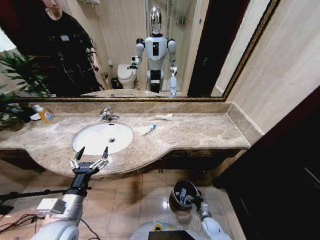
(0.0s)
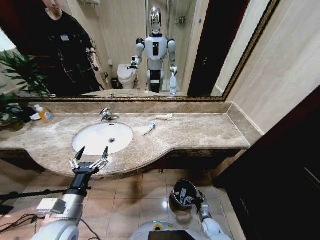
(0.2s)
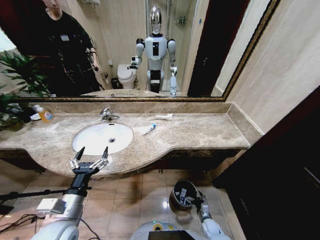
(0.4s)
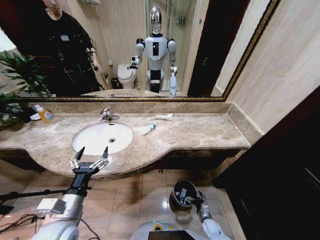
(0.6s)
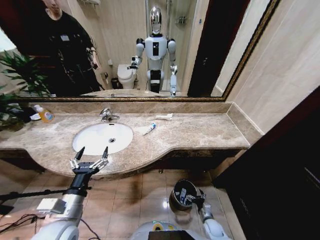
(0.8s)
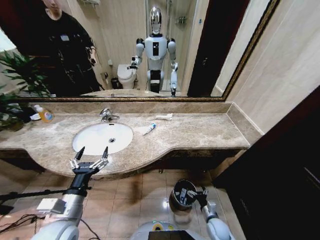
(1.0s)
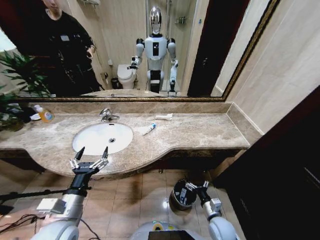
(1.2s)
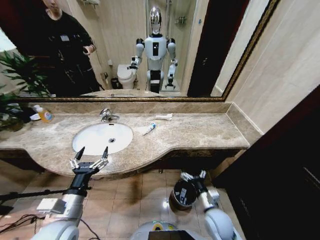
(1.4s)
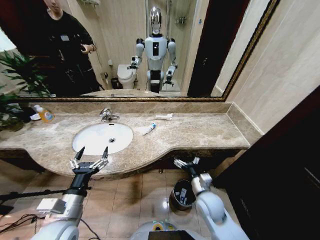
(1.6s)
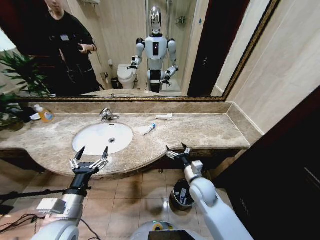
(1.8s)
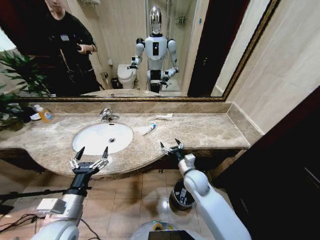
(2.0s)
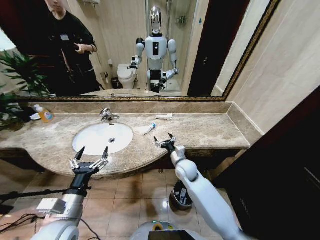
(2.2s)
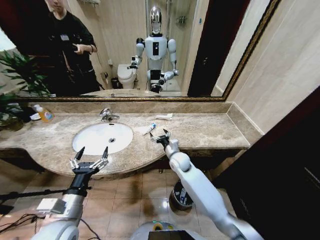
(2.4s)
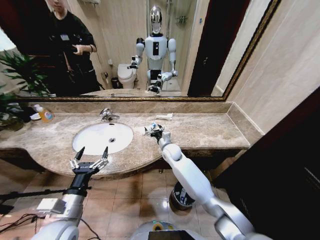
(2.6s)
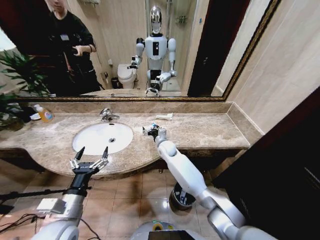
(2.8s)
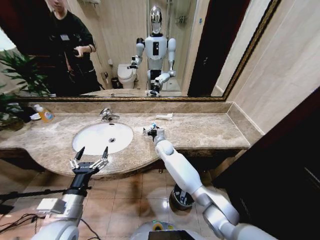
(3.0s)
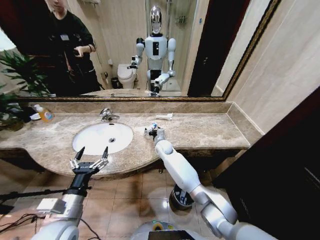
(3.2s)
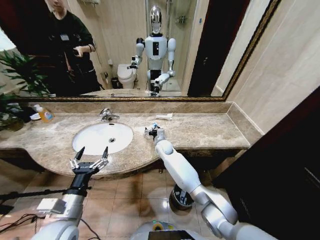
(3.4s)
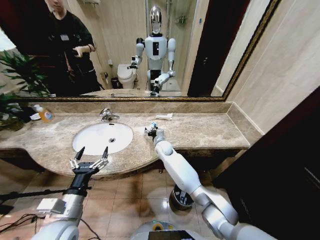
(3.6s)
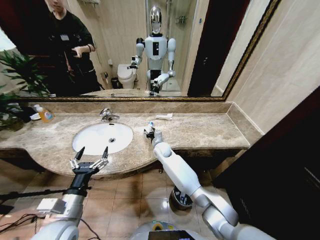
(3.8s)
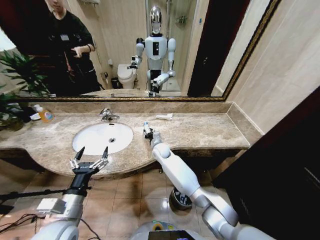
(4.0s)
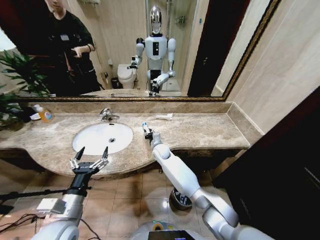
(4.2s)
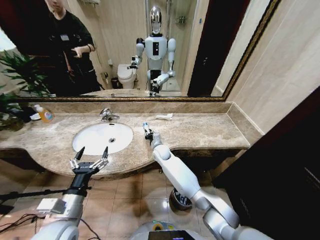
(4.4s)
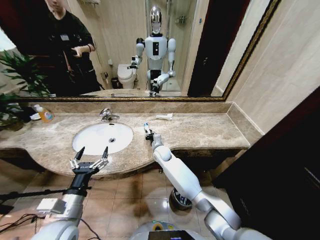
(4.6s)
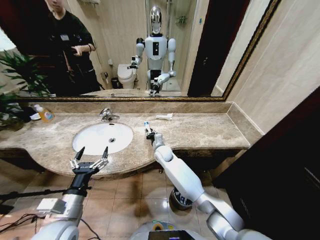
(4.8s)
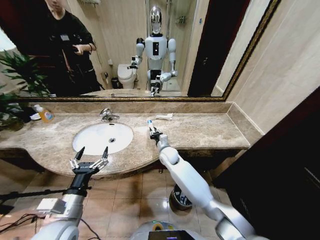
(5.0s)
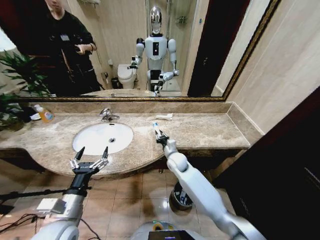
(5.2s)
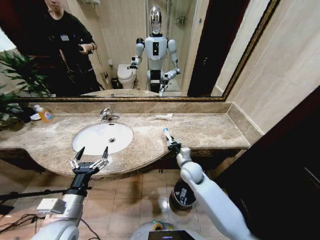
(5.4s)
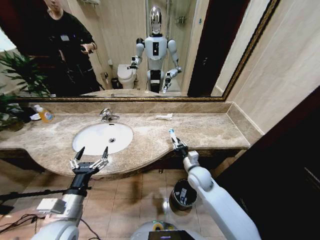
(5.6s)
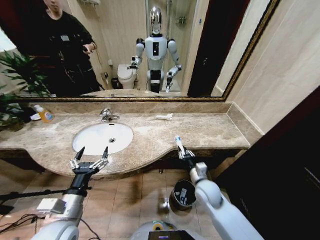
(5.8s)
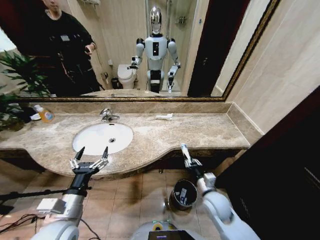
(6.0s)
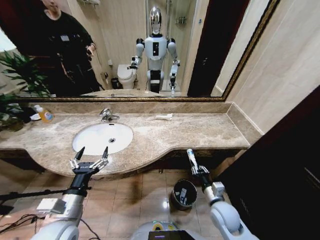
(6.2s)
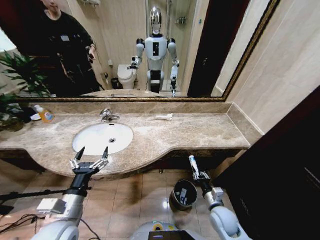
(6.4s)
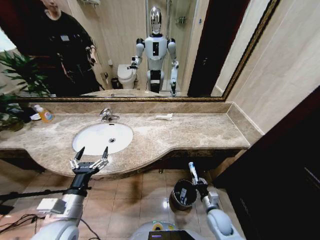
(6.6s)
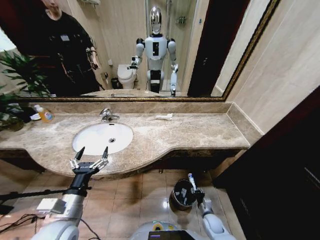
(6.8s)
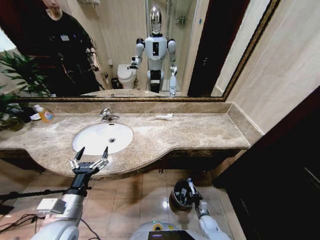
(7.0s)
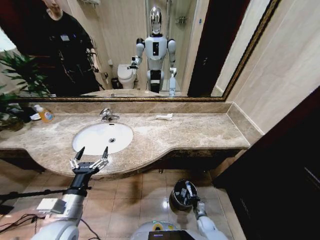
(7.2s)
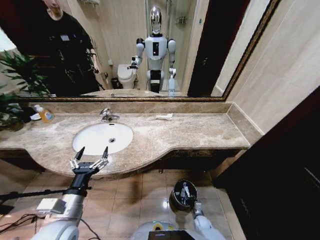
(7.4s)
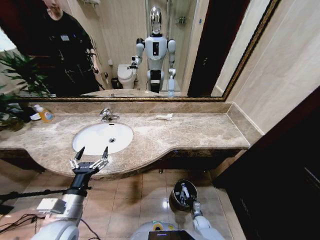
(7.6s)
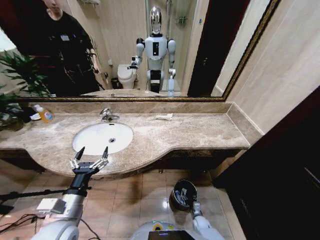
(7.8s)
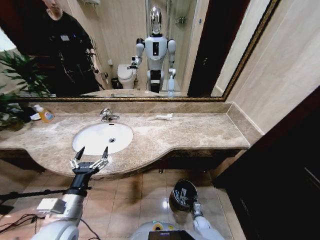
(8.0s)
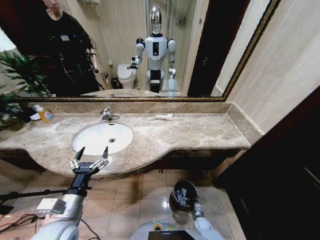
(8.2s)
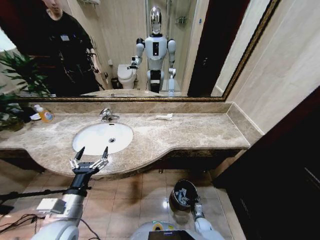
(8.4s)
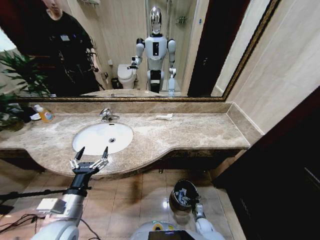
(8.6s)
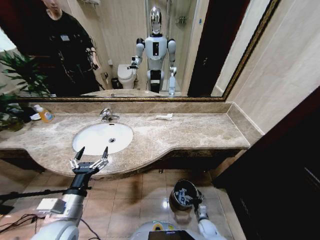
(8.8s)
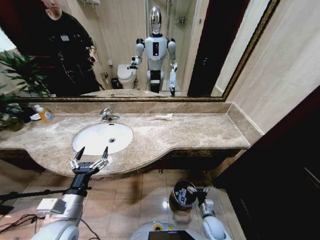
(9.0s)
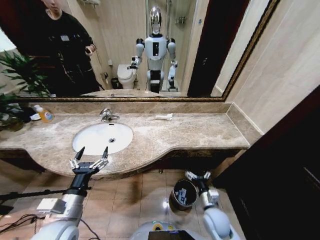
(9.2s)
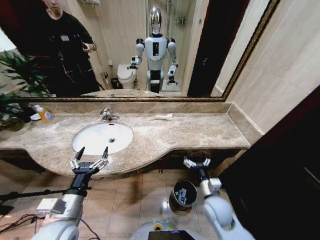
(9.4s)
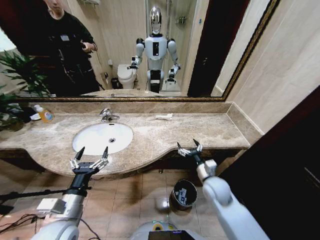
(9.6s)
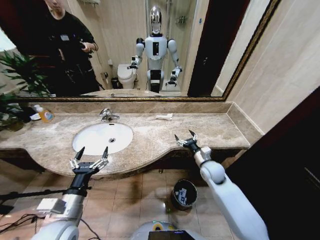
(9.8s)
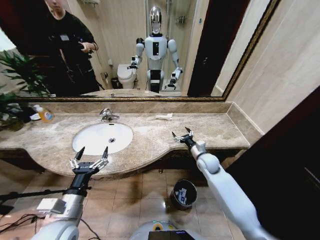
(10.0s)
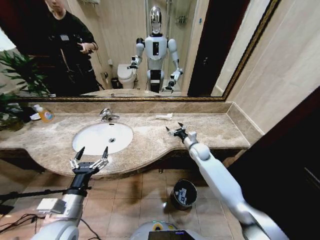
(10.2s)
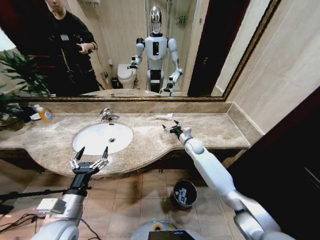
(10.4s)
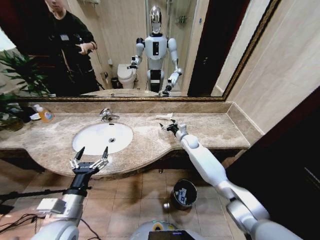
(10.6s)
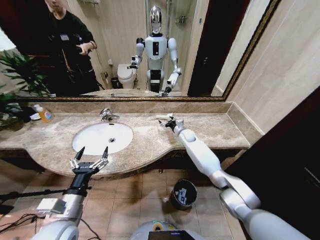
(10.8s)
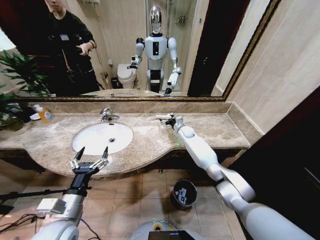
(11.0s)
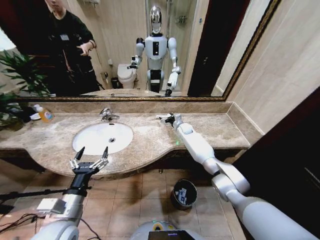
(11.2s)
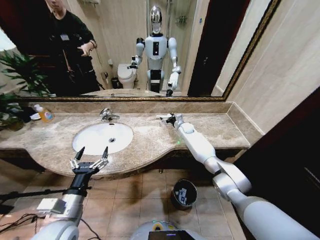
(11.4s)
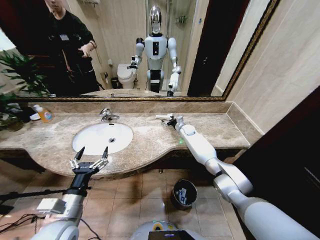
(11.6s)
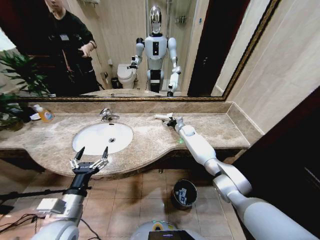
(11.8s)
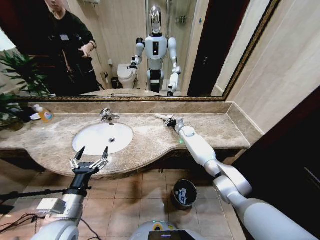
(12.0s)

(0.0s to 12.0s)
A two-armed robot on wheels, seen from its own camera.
Task of the whole recording: Pick up the trash from the sink and place it in the trash bin.
0.0s - 1.6s: The right gripper heads upward, covering roughly 30 cm.
1.6s - 3.0s: The right gripper moves forward and to the left, some 30 cm.
3.0s - 4.4s: The right gripper closes.
4.4s - 6.0s: The right gripper moves backward and to the right, roughly 30 cm.
6.0s - 7.6s: The right gripper travels downward by some 35 cm.
7.6s - 9.0s: The right gripper heads upward, covering roughly 15 cm, and opens up.
9.0s - 10.4s: The right gripper goes approximately 40 cm forward and upward.
10.4s - 12.0s: The right gripper heads forward, covering about 10 cm, and closes its fingers.

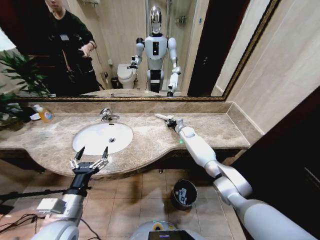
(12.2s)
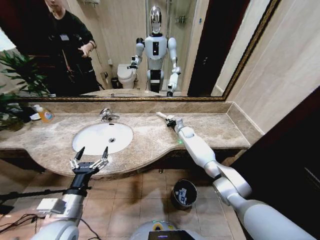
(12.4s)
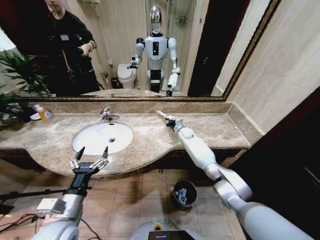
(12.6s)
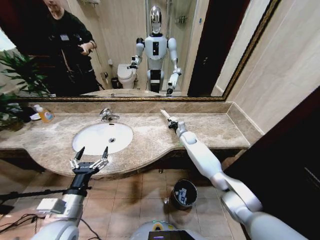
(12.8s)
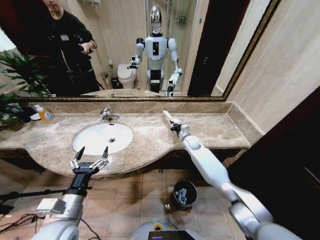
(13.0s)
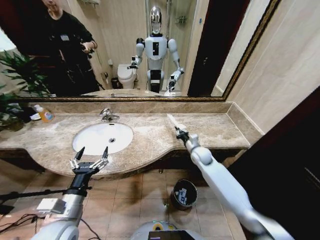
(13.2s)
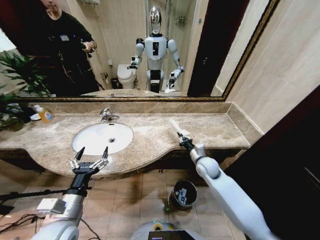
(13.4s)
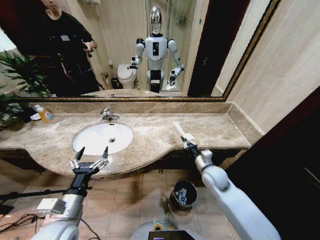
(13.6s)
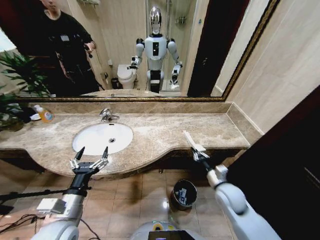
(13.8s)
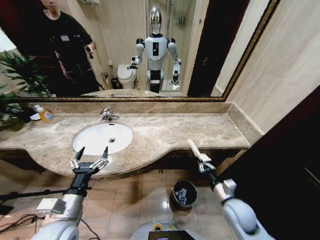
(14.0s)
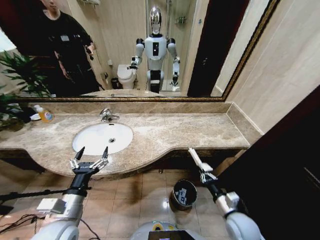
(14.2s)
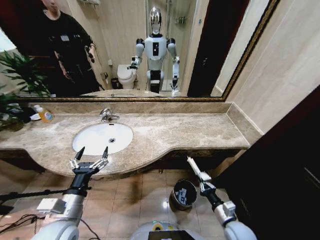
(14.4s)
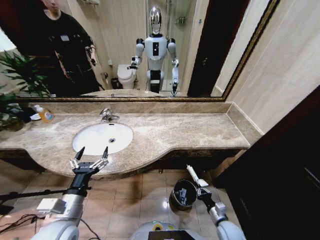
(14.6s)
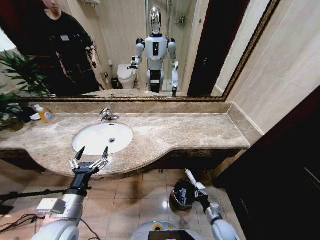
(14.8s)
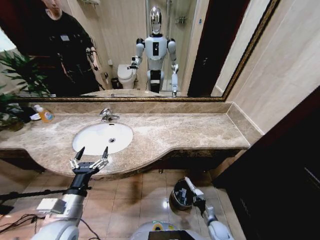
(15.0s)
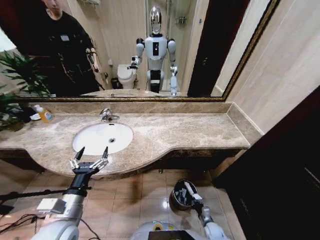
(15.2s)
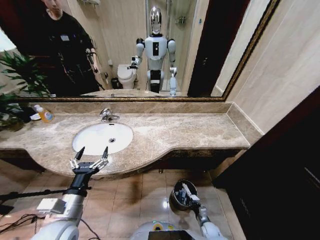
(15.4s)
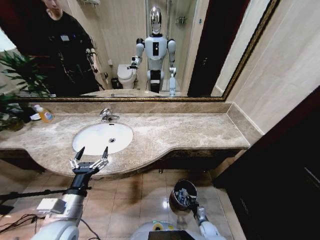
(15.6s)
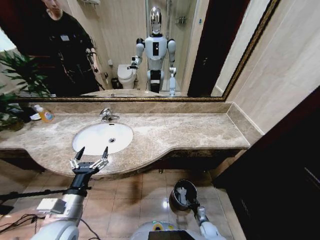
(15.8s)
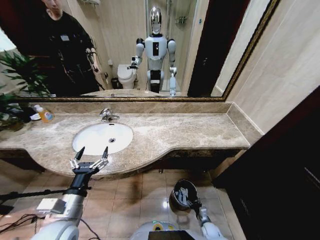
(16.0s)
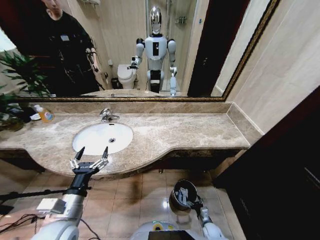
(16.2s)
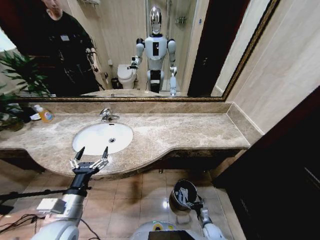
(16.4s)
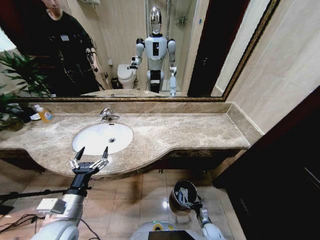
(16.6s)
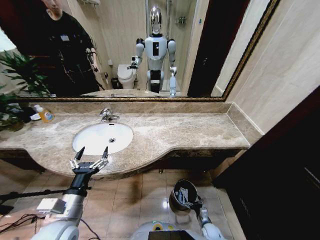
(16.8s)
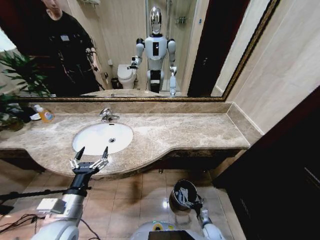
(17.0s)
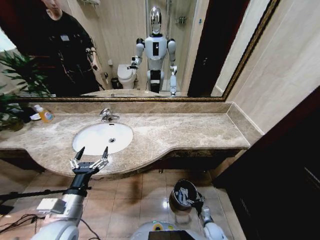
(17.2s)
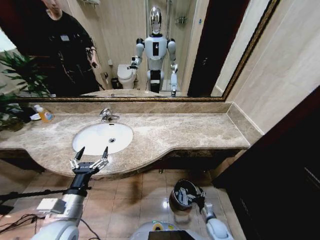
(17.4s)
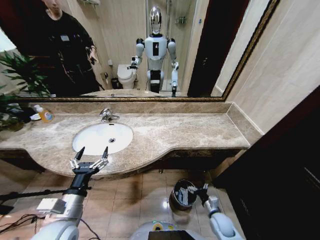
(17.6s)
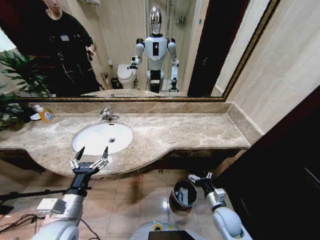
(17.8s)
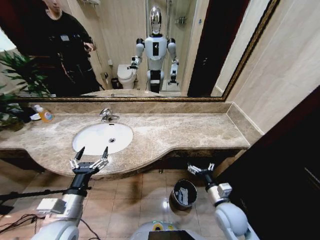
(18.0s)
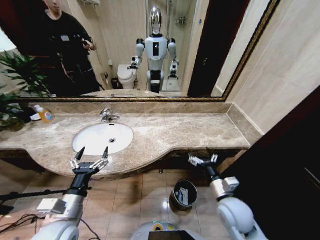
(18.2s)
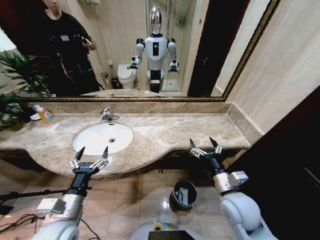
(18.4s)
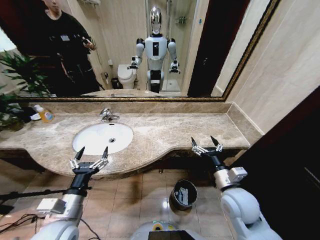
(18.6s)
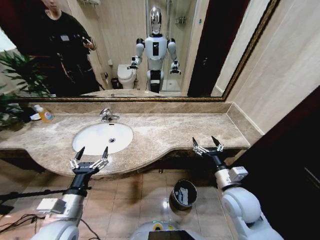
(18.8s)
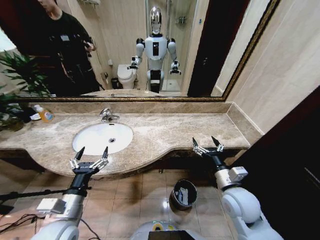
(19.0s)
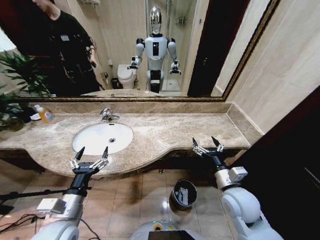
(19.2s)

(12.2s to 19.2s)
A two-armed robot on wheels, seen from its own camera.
Task of the whole recording: Pick up the trash from the sink and place it in the trash bin.
12.2s - 13.6s: The right gripper is displaced backward by some 30 cm.
13.6s - 15.0s: The right gripper moves downward and backward, approximately 35 cm.
15.0s - 16.4s: The right gripper goes some 5 cm downward, and opens its fingers.
16.4s - 17.8s: The right gripper travels upward by about 25 cm.
17.8s - 19.2s: The right gripper travels upward by approximately 15 cm.

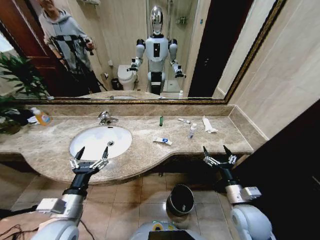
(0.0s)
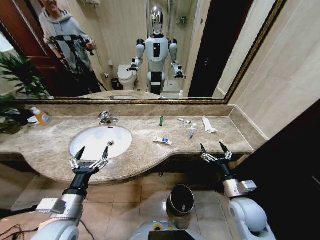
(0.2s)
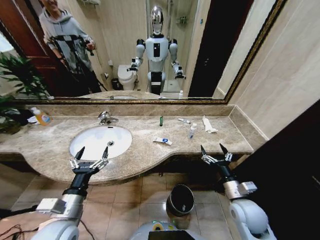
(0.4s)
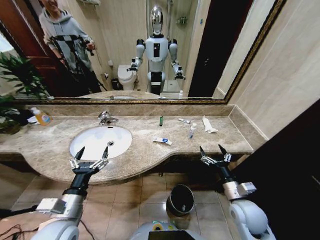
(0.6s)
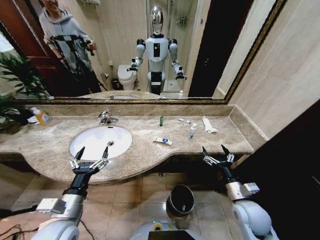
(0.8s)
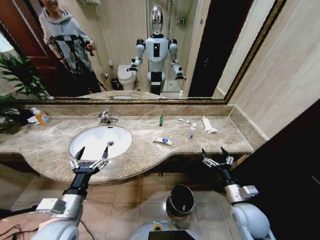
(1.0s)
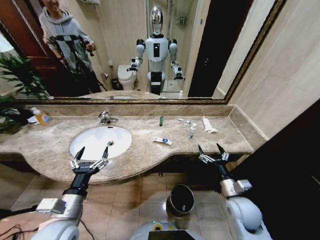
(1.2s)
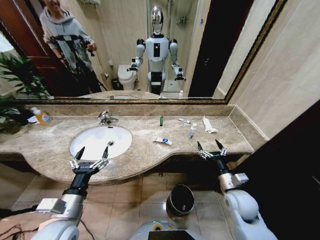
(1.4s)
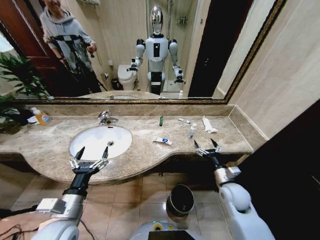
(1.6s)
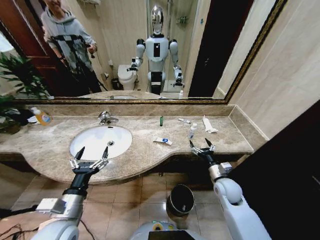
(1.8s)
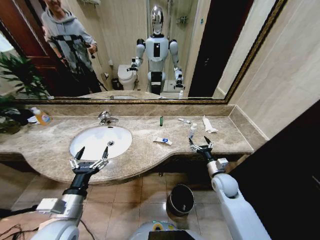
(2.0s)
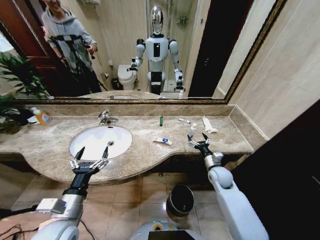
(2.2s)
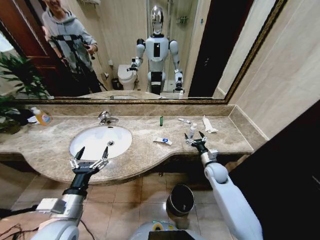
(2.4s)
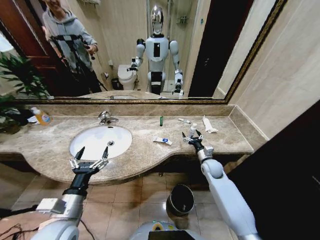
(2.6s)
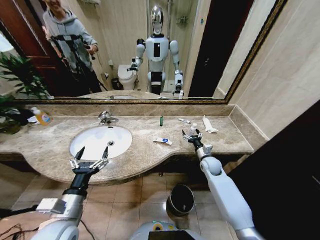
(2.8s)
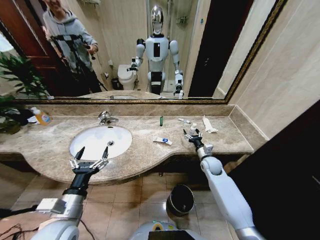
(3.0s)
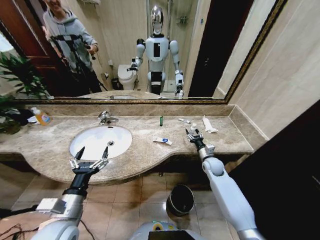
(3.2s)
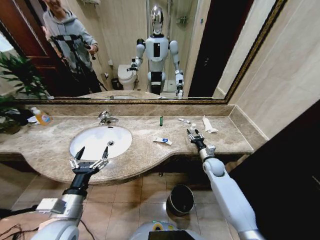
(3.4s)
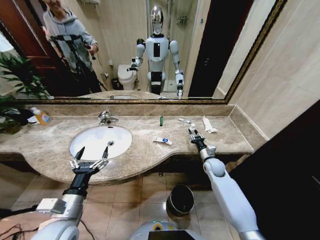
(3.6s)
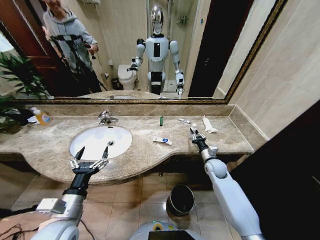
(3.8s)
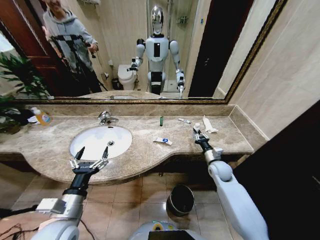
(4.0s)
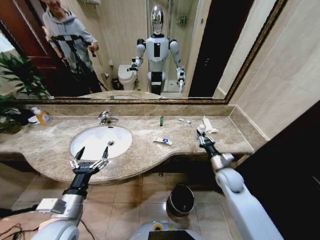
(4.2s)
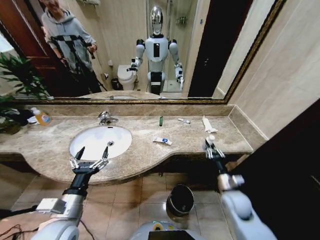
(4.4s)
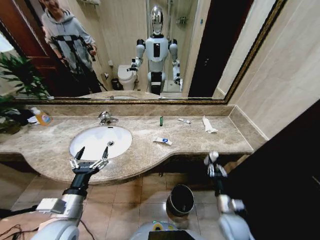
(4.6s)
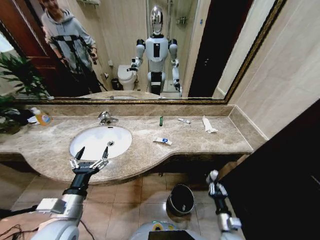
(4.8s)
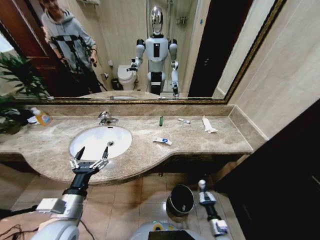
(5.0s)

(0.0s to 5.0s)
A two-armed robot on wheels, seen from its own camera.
Task of the whole recording: Pick up the trash from the sink and place it in the trash bin.
1.6s - 3.4s: The right gripper travels forward by approximately 15 cm, and closes its fingers.
3.4s - 5.0s: The right gripper moves backward and downward, approximately 35 cm, and closes its fingers.
